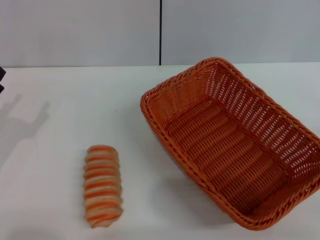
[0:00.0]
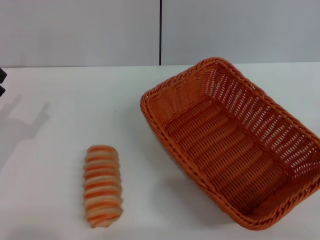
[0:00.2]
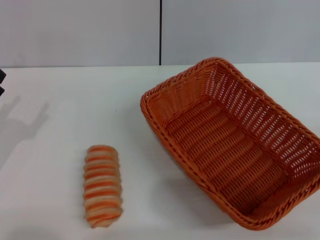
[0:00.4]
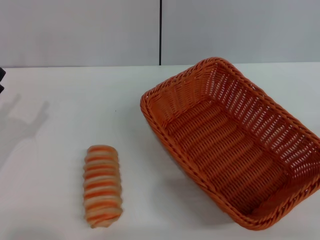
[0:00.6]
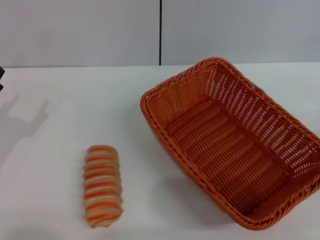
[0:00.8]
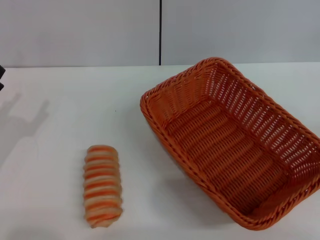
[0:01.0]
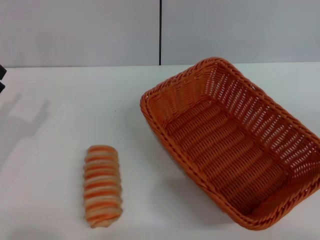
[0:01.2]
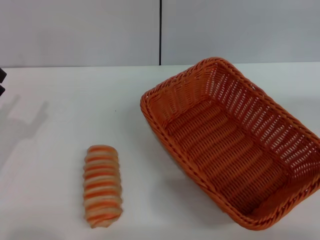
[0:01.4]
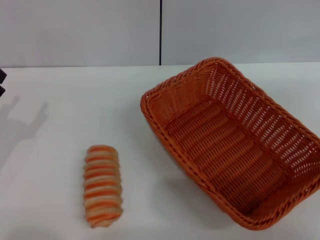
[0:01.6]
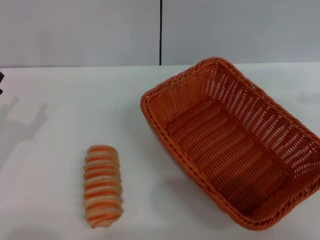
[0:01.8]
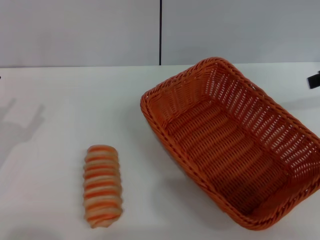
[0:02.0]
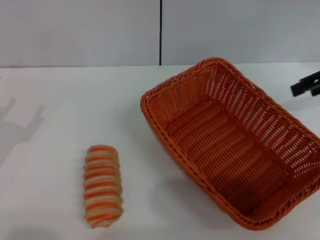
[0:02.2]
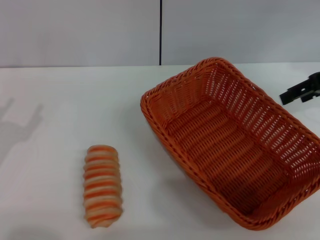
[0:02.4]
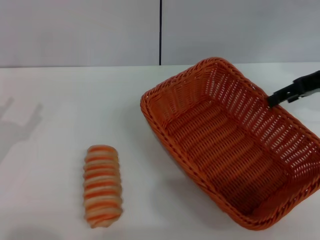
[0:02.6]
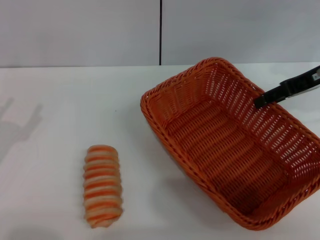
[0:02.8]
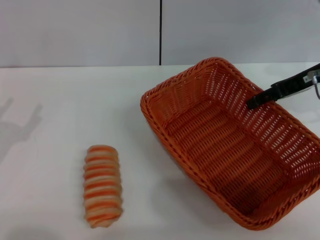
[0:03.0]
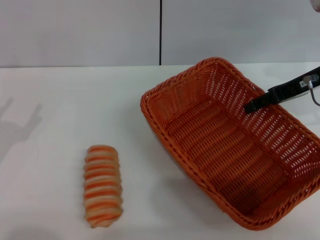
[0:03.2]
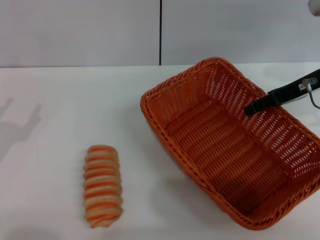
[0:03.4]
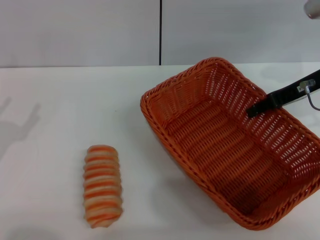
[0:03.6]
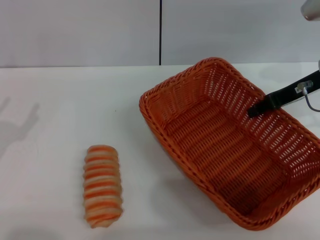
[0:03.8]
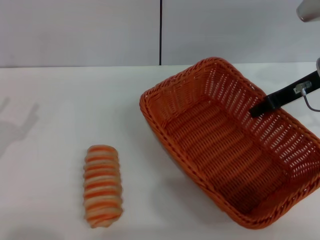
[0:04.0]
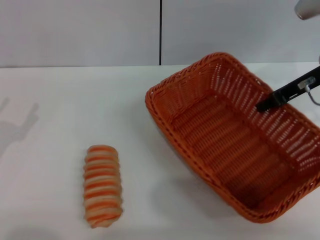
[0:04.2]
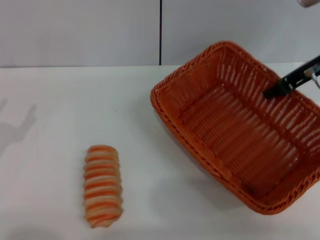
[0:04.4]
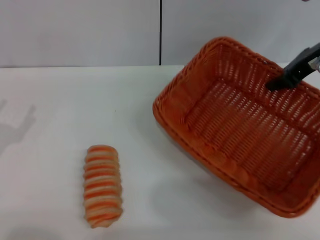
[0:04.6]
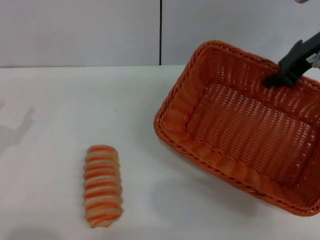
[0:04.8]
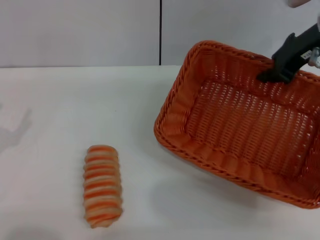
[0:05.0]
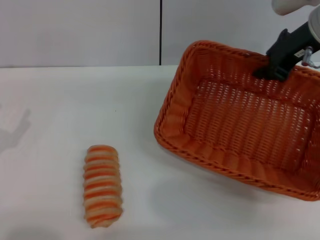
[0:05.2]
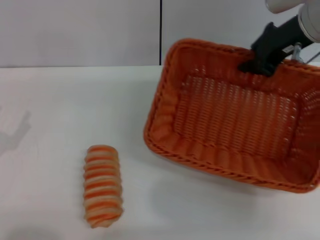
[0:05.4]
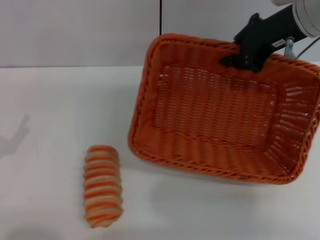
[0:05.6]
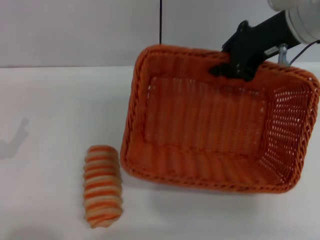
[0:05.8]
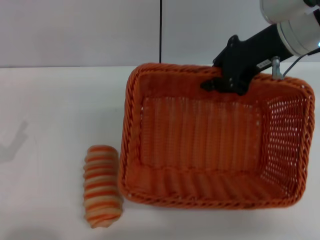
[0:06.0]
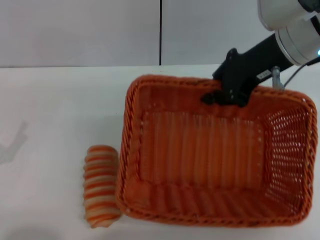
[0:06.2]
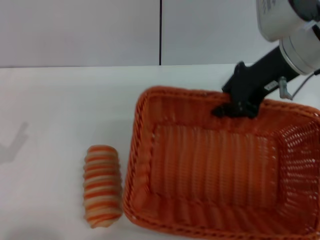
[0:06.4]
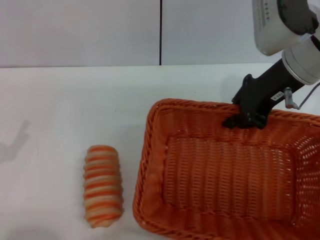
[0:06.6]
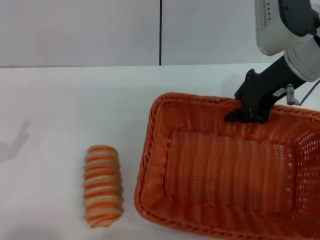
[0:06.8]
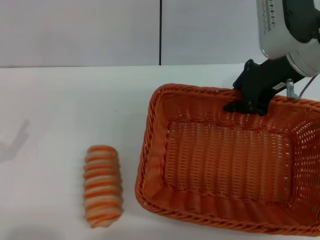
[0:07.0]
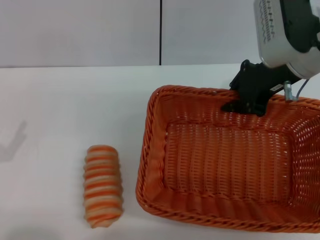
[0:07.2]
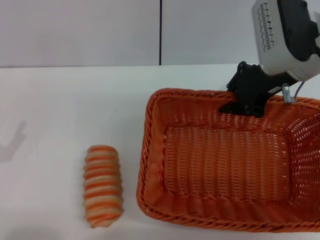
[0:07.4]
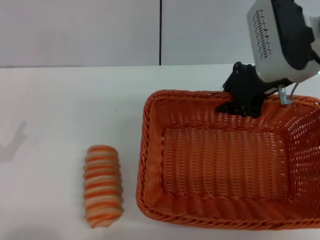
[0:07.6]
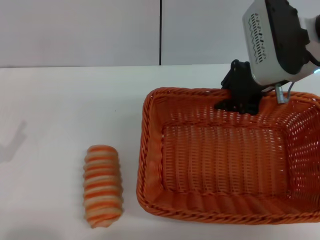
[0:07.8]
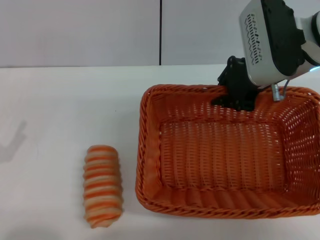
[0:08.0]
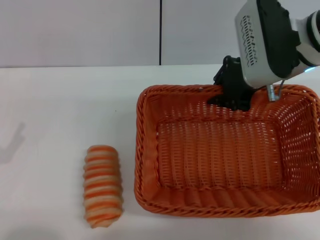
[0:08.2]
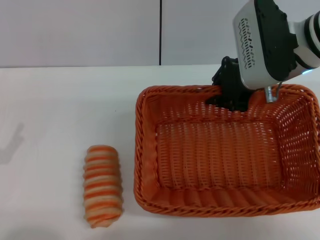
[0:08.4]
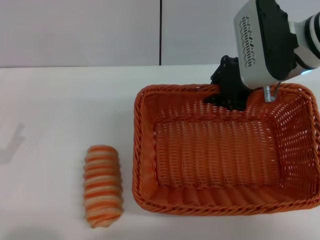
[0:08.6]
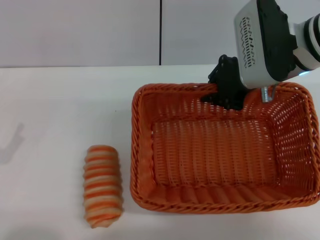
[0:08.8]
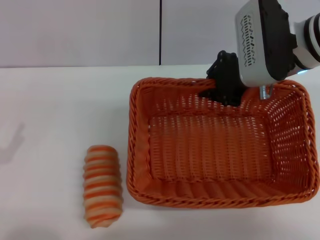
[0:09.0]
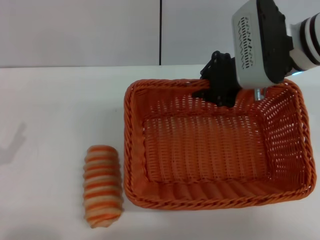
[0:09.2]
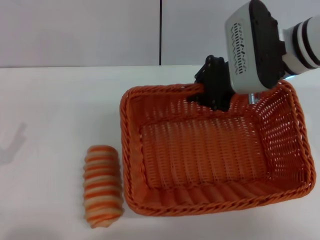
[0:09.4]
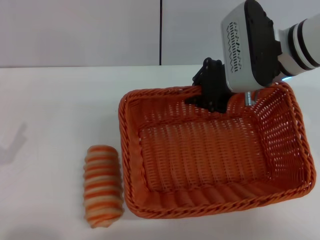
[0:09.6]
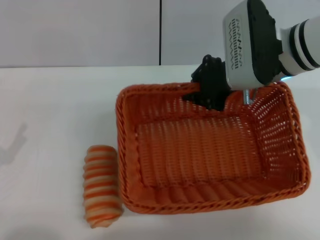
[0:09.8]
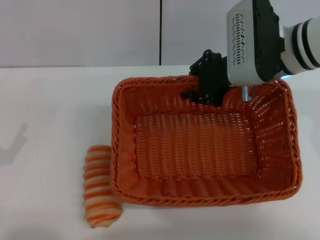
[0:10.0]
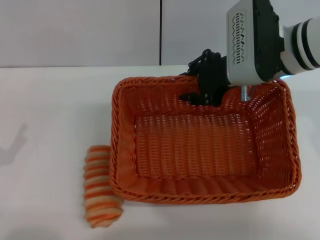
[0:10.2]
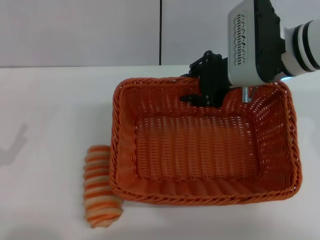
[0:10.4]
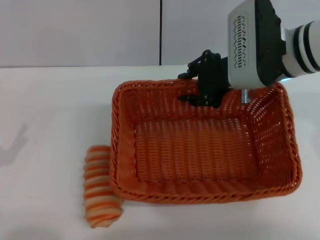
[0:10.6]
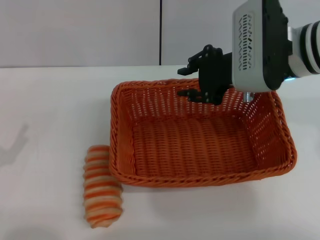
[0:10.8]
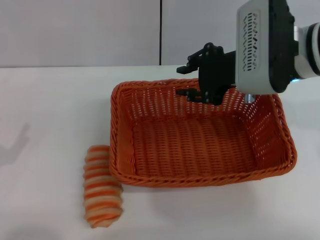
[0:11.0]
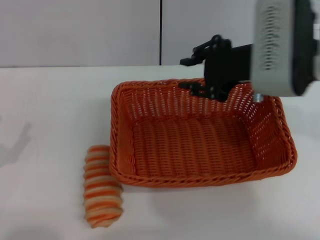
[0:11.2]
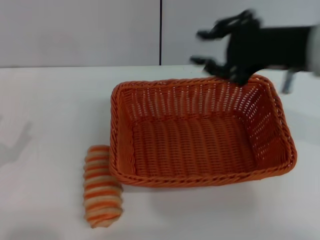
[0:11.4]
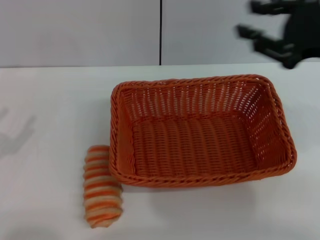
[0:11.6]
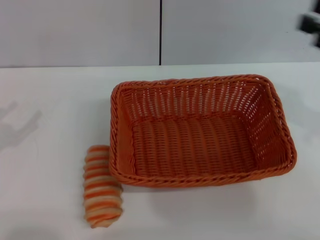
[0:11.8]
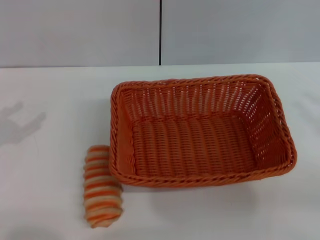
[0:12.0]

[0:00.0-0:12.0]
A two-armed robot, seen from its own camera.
Step, 0:00.0 to 0:04.4: Pick up the light basket with the right gripper.
Step, 0:04.6 to 0:11.0: Place the light basket in the center of view with the right gripper.
0:01.6 to 0:03.0: The right gripper moves to the left, downward and forward, some 20 cm.
0:03.0 to 0:04.4: The right gripper closes up.
0:04.4 to 0:06.0: The right gripper shifts roughly 10 cm to the left.
0:09.0 to 0:10.4: The right gripper opens its fingers.
0:10.4 to 0:12.0: The right gripper travels to the right and backward by about 30 cm. The left gripper travels upward and forward by about 10 cm.

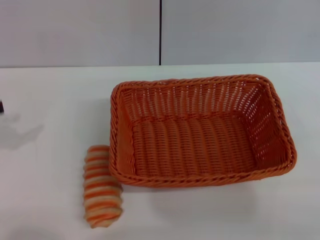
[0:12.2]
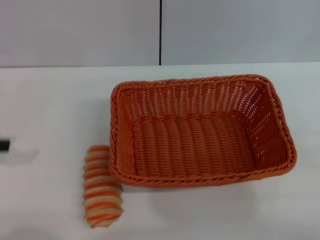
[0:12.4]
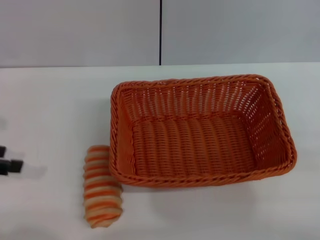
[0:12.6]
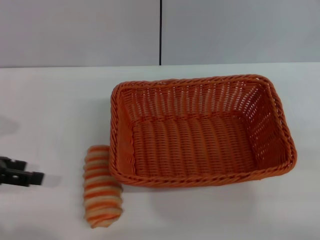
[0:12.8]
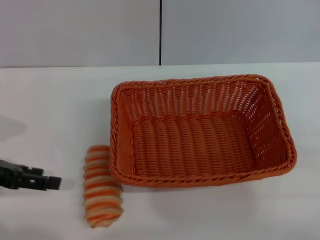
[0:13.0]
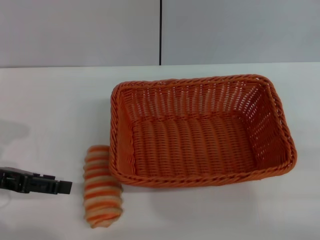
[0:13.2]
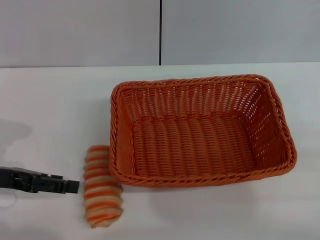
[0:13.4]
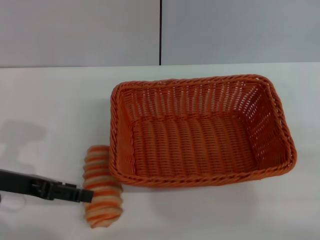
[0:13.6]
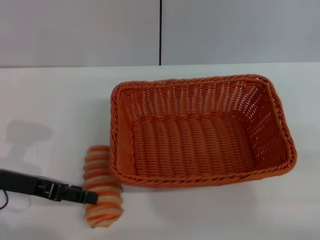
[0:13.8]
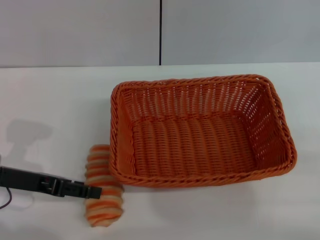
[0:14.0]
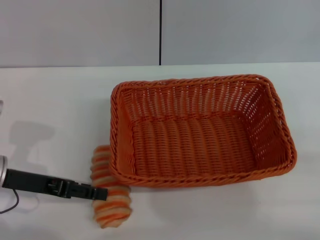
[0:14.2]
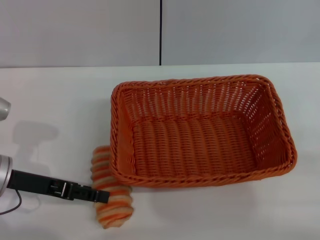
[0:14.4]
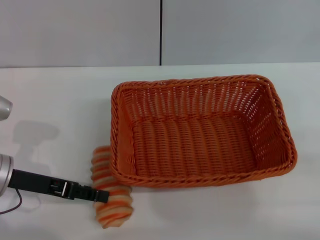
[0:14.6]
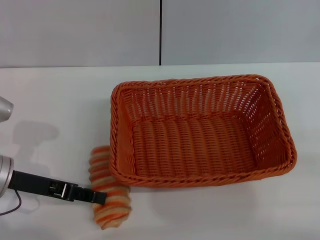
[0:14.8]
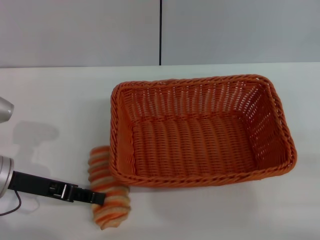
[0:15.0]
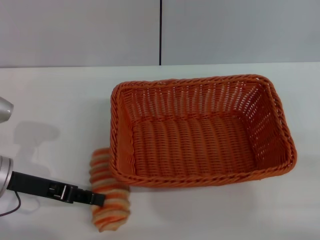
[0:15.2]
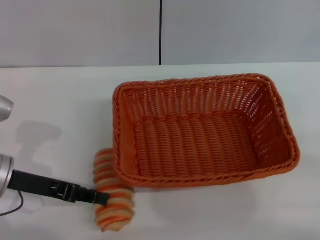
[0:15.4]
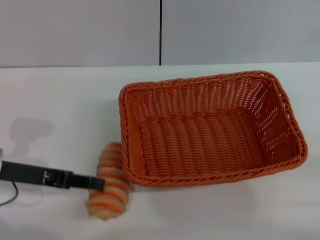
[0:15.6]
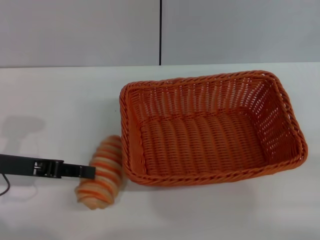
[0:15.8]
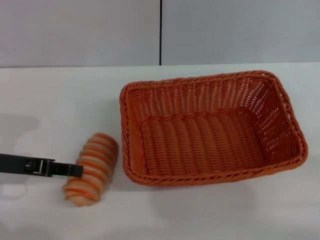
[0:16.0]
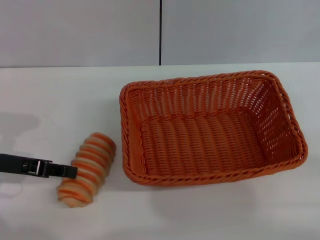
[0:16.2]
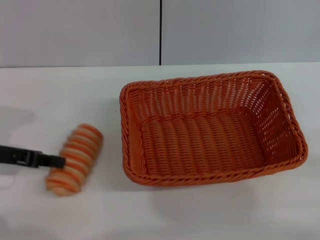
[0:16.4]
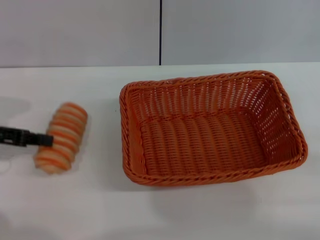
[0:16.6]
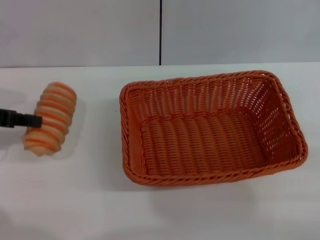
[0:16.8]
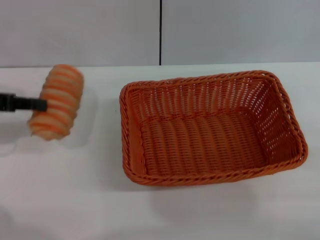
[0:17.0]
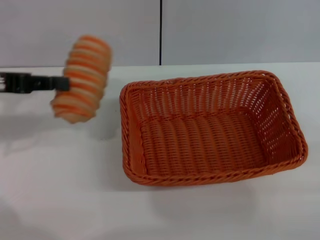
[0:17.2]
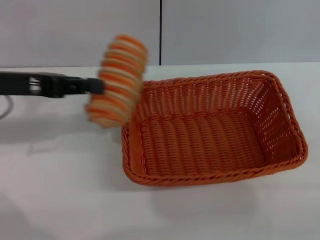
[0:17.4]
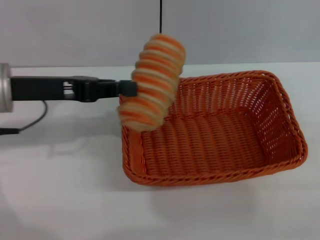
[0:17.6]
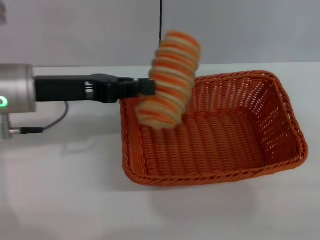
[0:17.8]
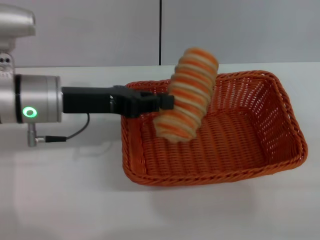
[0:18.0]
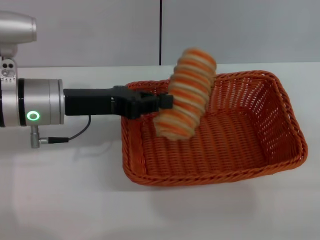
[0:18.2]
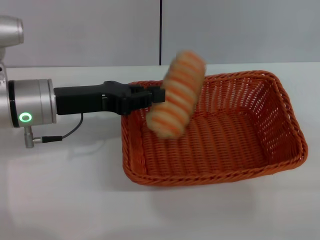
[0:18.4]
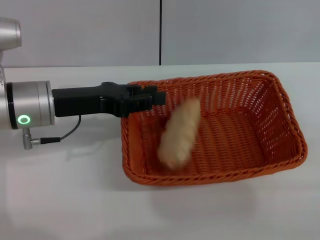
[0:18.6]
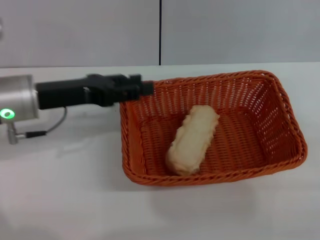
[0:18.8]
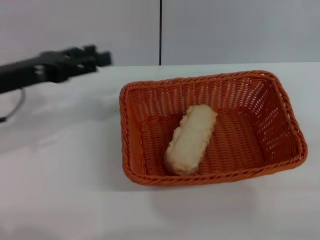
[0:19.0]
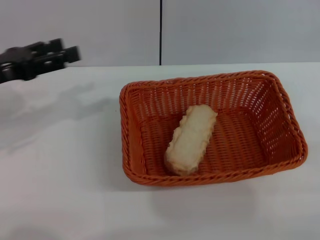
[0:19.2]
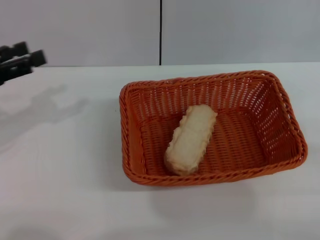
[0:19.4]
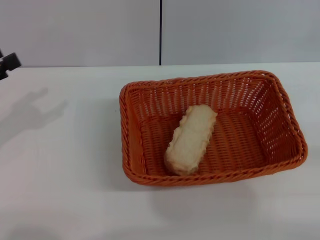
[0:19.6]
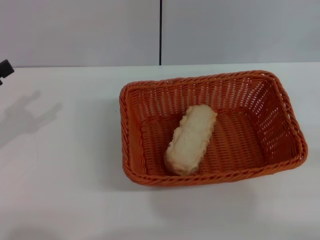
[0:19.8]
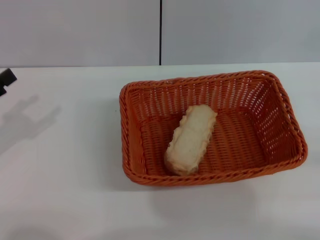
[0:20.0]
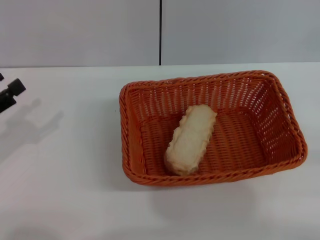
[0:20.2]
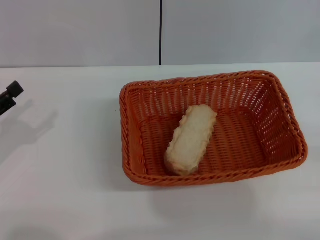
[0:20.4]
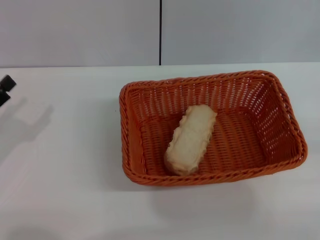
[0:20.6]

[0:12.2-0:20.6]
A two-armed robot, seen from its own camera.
Step, 0:12.2 to 0:16.8: Pick up the long bread with the left gripper.
Step, 0:17.0 to 0:18.6: Place the long bread into the light basket with the left gripper.
0:12.2 to 0:13.6: The left gripper travels to the right and downward by roughly 10 cm.
0:13.6 to 0:15.0: The left gripper closes its fingers.
0:15.0 to 0:16.4: The left gripper moves approximately 5 cm, and closes up.
0:16.4 to 0:17.8: The left gripper heads to the right and upward, covering some 10 cm.
0:17.8 to 0:19.2: The left gripper goes some 10 cm to the left, and opens its fingers.
0:19.2 to 0:20.6: The left gripper heads downward and backward, covering approximately 10 cm.
